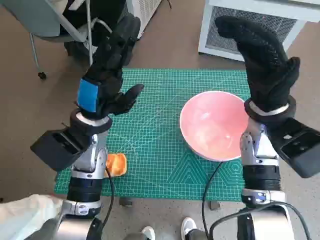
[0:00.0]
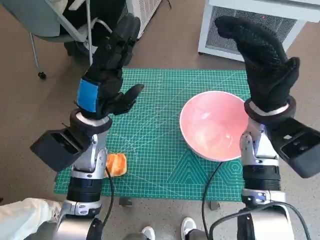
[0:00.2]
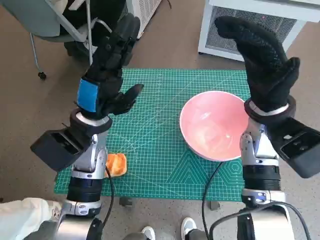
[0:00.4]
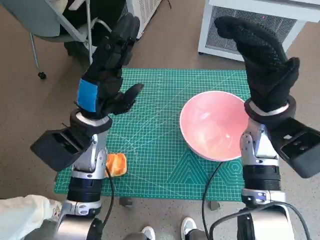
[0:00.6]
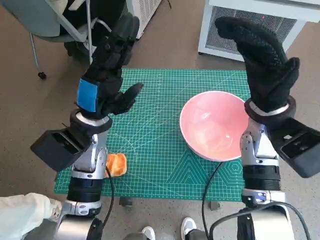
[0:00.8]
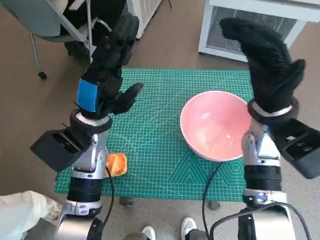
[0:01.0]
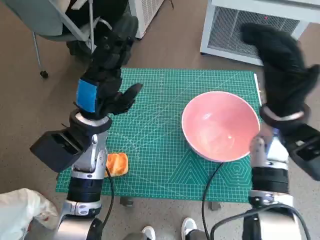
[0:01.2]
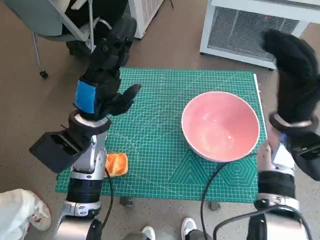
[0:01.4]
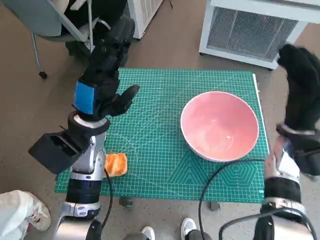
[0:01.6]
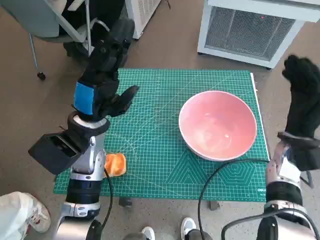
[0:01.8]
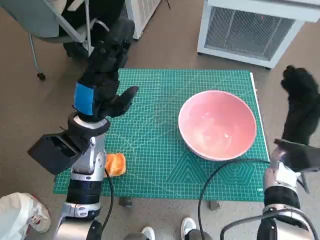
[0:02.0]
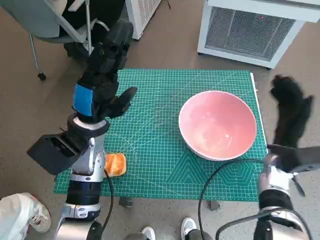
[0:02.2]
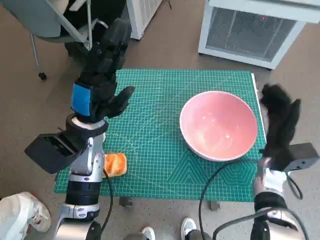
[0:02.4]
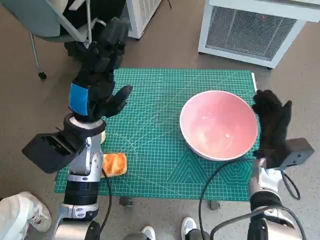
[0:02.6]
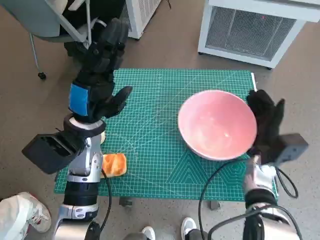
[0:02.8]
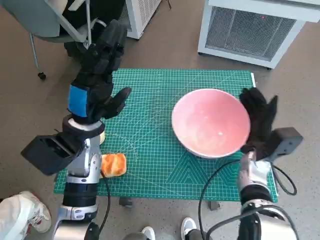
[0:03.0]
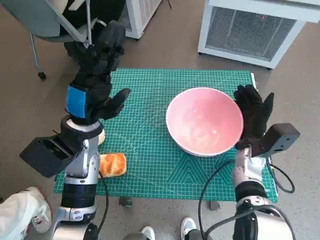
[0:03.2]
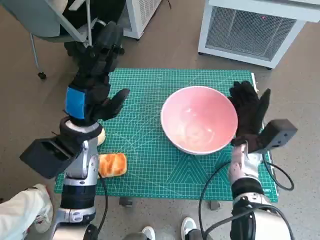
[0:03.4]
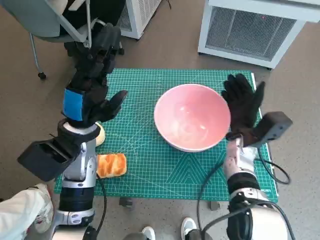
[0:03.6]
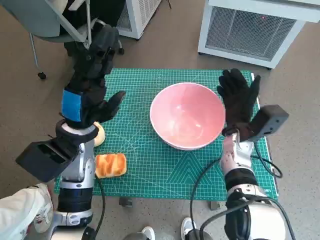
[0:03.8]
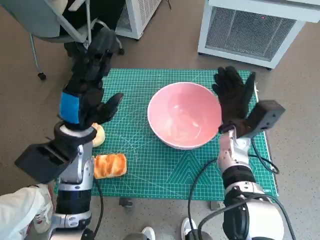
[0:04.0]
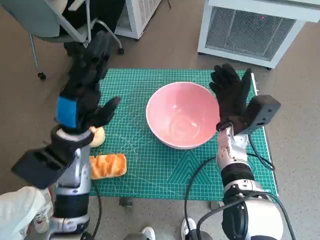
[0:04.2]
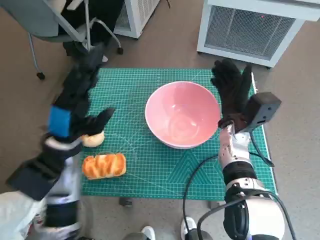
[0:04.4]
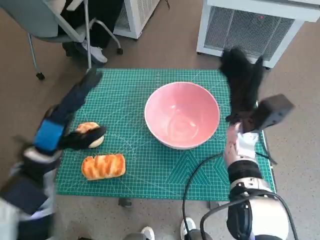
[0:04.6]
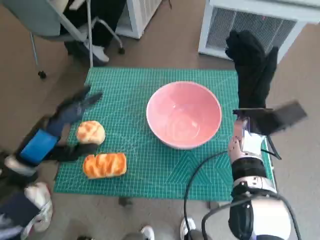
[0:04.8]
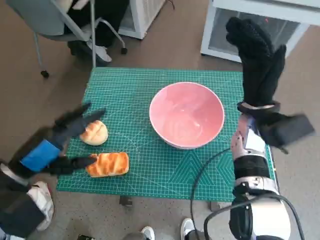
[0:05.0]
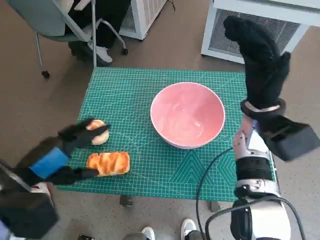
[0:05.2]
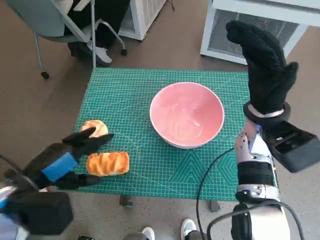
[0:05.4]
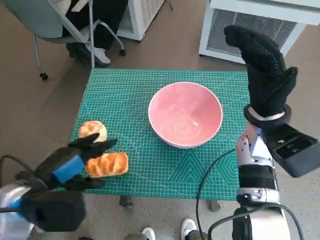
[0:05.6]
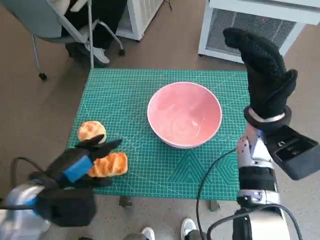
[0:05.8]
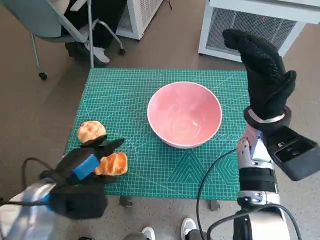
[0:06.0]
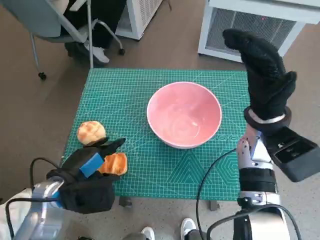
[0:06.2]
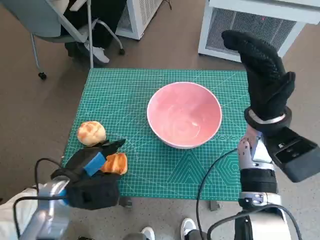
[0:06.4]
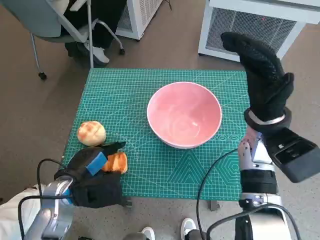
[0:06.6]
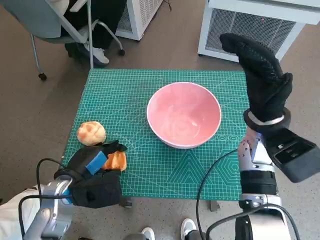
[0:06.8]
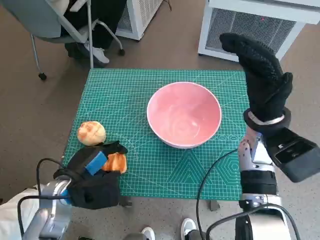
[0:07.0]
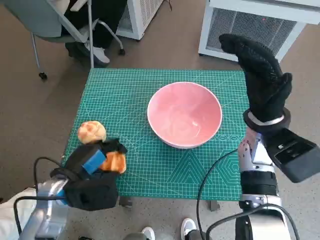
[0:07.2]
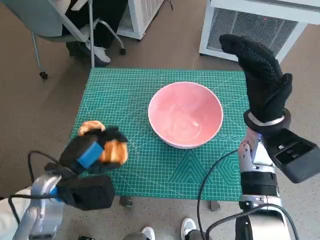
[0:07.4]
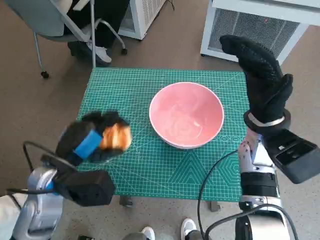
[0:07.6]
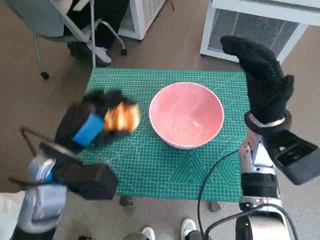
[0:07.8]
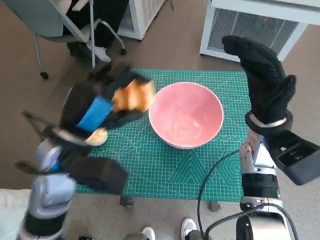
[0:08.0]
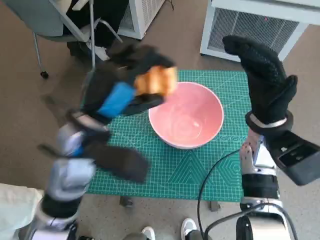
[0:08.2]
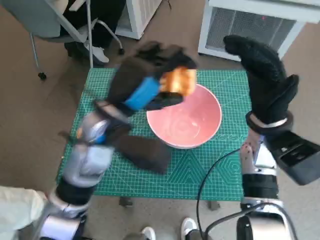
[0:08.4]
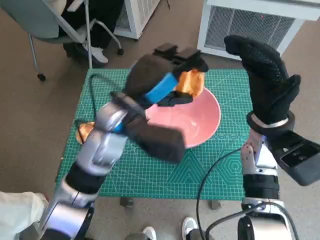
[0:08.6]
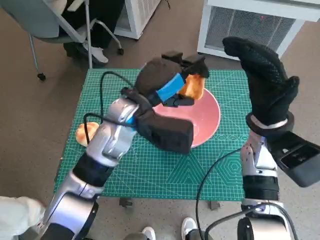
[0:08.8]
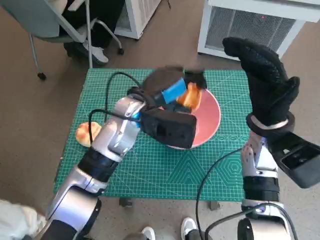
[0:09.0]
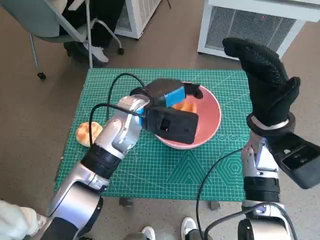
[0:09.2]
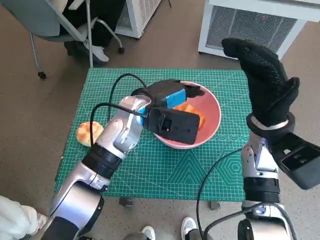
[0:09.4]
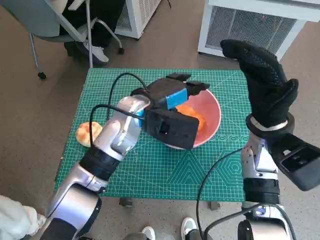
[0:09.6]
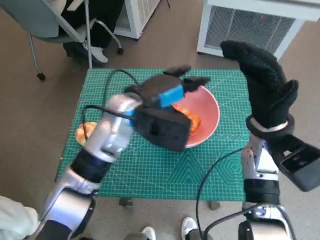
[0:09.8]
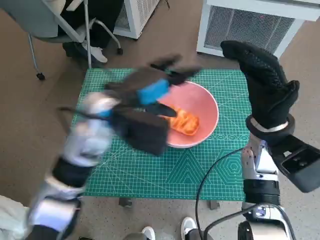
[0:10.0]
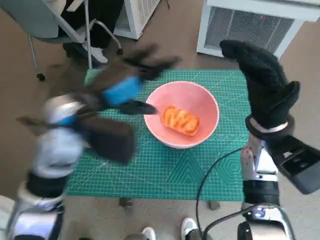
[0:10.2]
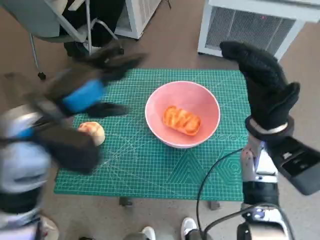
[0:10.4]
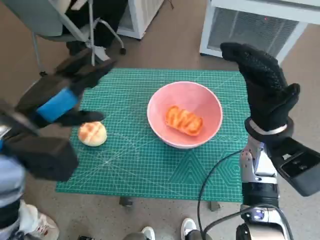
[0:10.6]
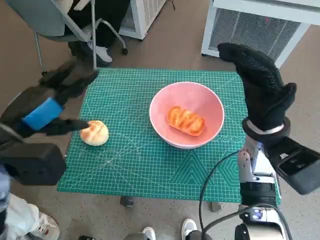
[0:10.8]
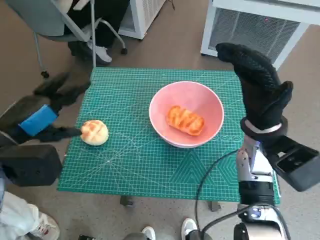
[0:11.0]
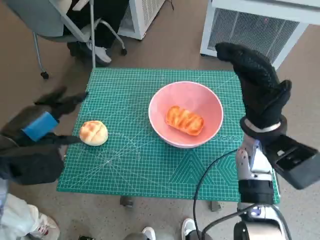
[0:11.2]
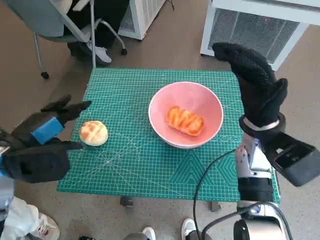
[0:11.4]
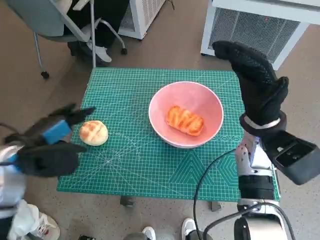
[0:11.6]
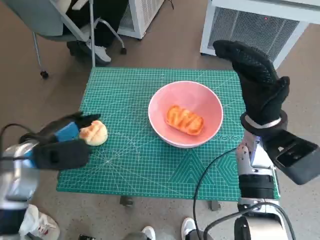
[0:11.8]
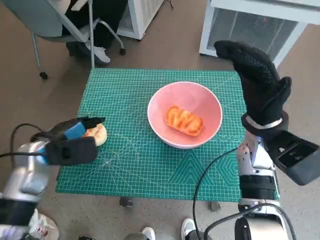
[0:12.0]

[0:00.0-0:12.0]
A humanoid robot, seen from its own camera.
Task of the whole recording: Push the bowl to the center of the table and put the bread into the bowl.
Step, 0:00.0 to 0:04.4: Move the pink bowl to the center of table with right hand.
Step, 0:04.6 to 0:06.8: Grasp the long bread with left hand.
Step, 0:07.0 to 0:09.8: Place the long bread in pink bowl with left hand.
0:01.6 to 0:03.0: The right hand heads downward, covering about 10 cm.
0:03.0 to 0:04.4: The right hand goes roughly 5 cm to the left.
0:04.4 to 0:06.0: The right hand goes approximately 10 cm upward. The left hand goes approximately 5 cm backward.
0:07.6 to 0:09.0: The left hand travels to the right and forward by about 20 cm.
0:09.0 to 0:10.4: The left hand heads to the left, backward and upward, covering approximately 15 cm.
0:10.4 to 0:12.0: The left hand moves downward and to the left, roughly 15 cm.

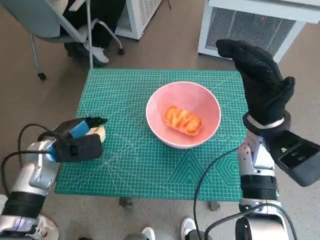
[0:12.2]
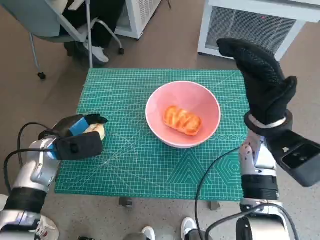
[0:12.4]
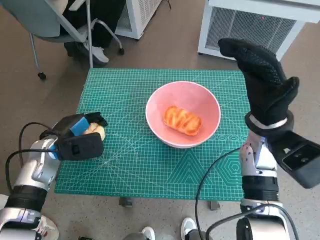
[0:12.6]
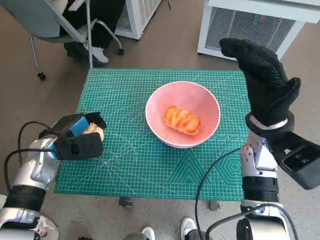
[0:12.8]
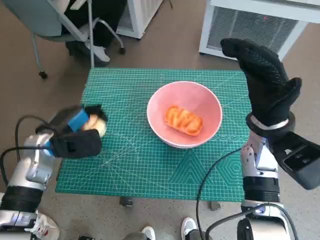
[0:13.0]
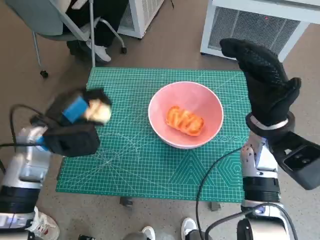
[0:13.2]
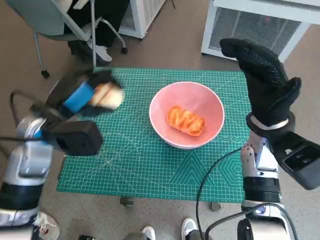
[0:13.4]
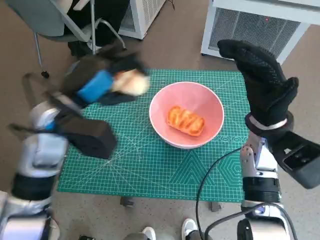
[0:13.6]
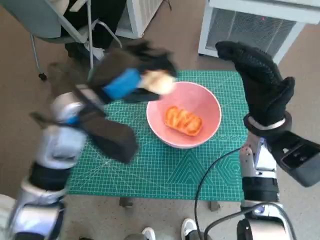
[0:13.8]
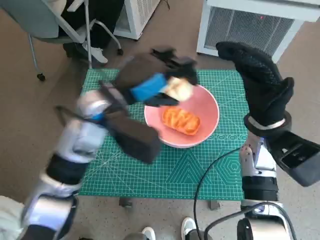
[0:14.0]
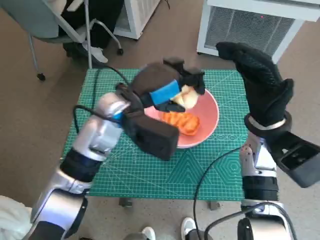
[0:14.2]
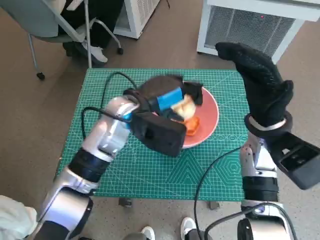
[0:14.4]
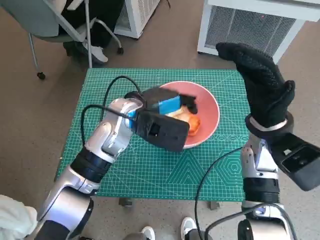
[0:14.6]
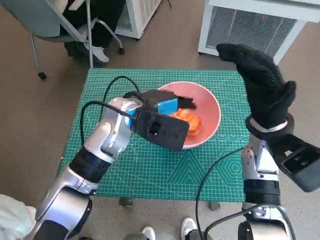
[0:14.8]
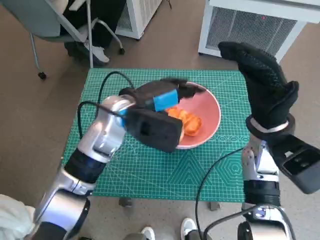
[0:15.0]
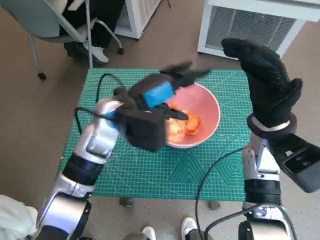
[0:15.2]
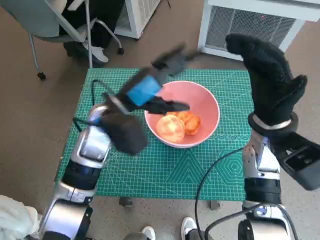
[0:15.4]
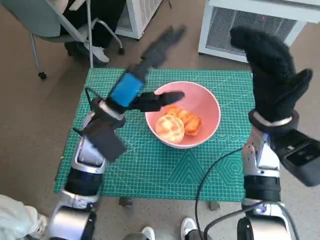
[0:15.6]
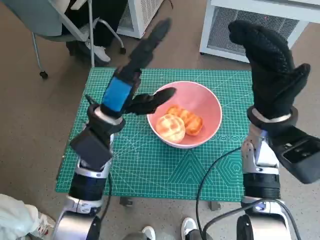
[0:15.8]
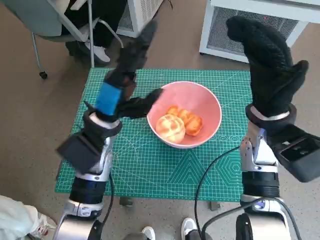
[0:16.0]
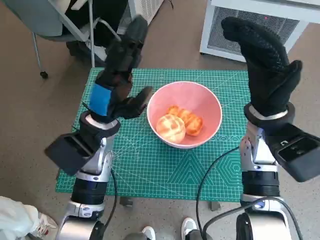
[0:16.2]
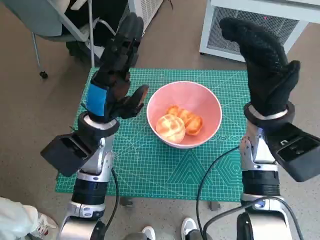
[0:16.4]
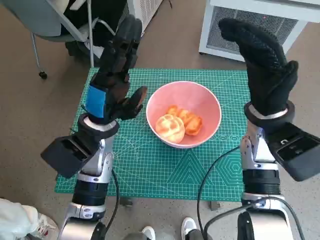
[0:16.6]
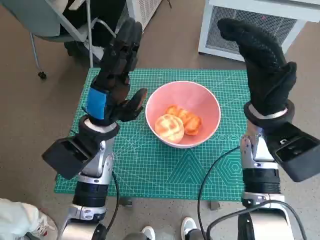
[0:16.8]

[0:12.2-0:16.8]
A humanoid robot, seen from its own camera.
Task of the whole recording: Push the bowl to the center of the table and put the bread into the bowl.
Step, 0:12.6 to 0:14.8: Place the round bread in pink bowl with left hand.
0:12.2 to 0:13.8: The left hand moves upward and to the right, some 15 cm.
0:13.8 to 0:15.2: The left hand is displaced to the right by roughly 5 cm.
0:15.2 to 0:16.8: The left hand ends up approximately 5 cm from where it was.

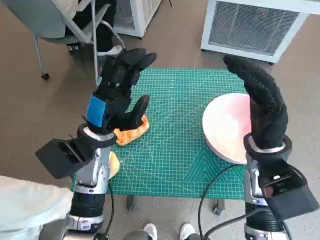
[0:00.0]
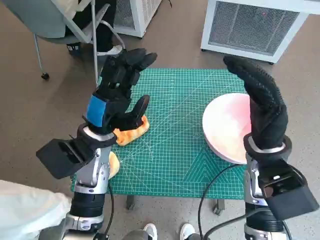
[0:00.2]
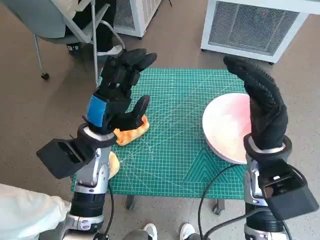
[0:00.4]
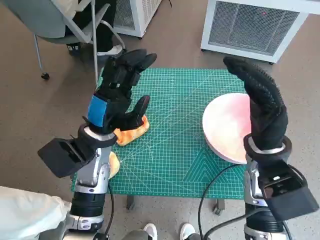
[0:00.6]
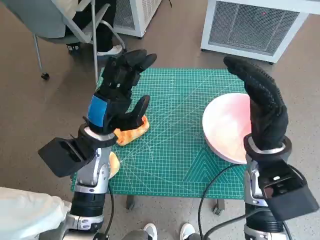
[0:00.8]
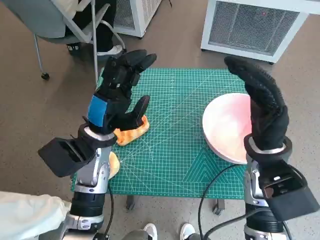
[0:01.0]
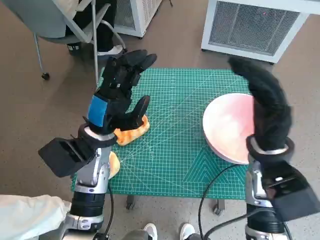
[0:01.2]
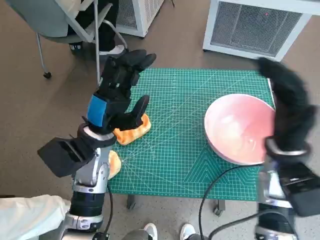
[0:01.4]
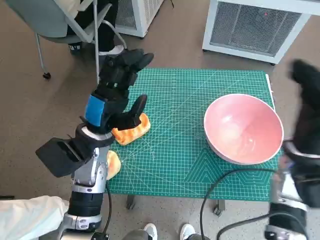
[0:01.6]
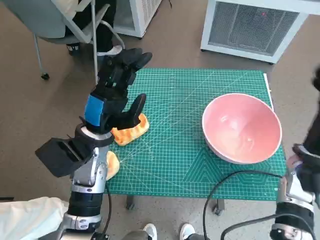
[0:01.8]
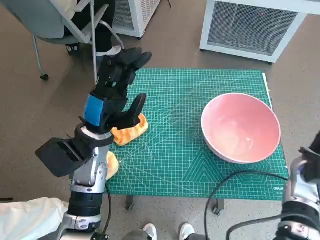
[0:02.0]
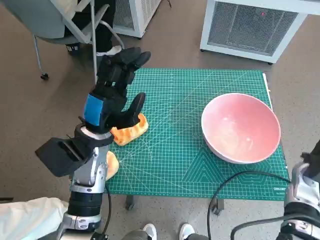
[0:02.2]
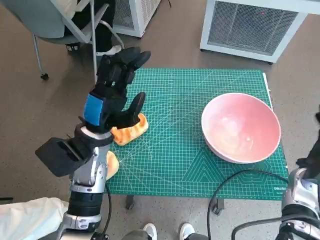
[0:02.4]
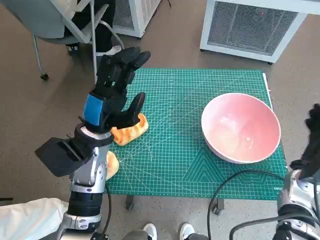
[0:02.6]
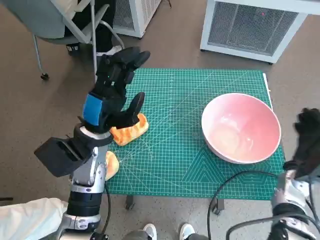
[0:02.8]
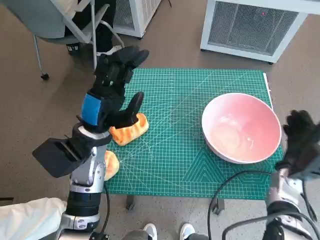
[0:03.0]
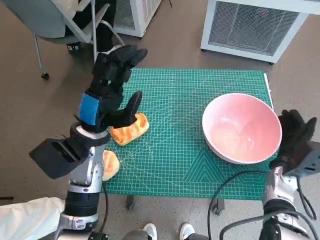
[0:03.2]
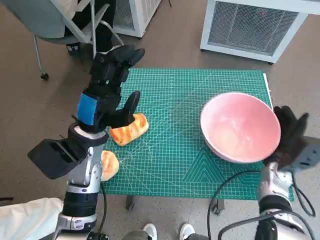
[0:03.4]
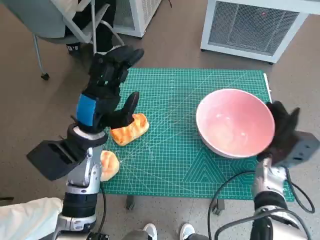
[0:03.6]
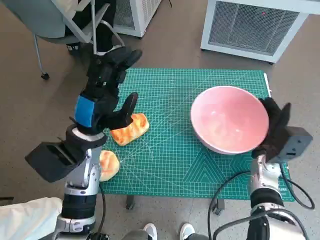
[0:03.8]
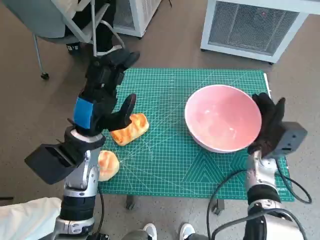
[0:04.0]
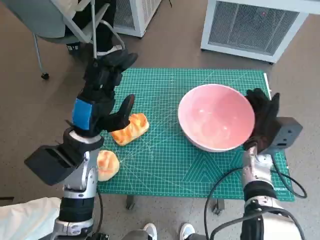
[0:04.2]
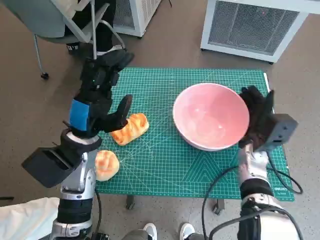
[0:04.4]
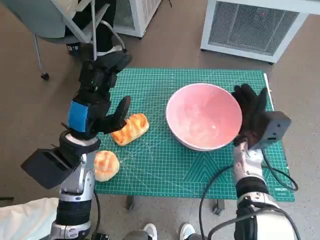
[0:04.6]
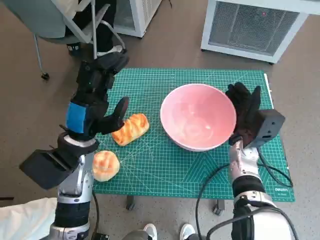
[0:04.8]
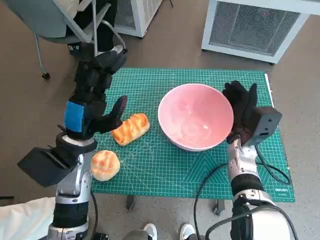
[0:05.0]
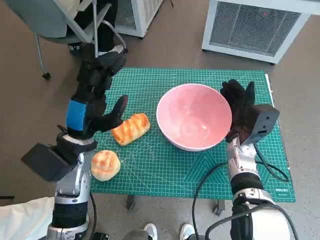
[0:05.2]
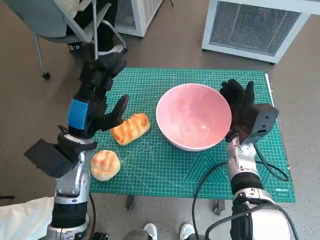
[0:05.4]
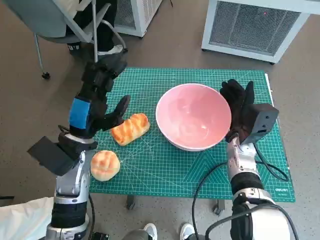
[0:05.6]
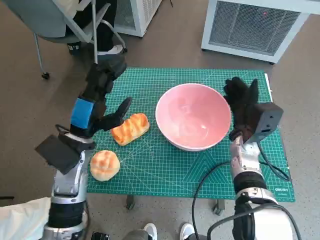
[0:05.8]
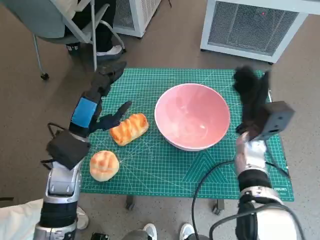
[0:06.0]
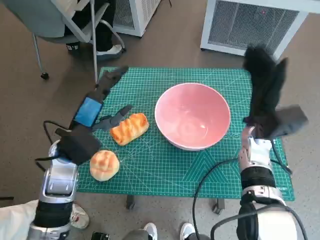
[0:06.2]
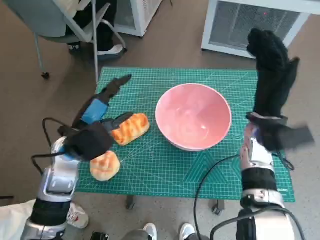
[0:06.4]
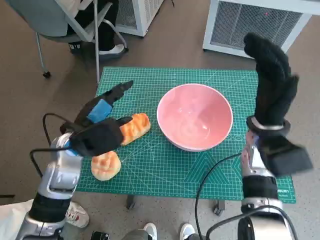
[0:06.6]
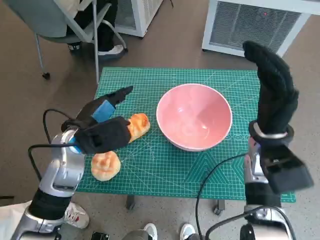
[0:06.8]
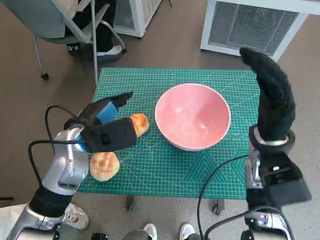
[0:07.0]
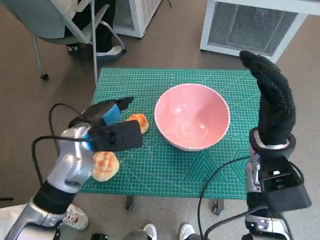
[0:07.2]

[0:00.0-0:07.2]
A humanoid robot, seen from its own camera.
Task of the whole recording: Push the bowl to the center of the table and put the bread into the bowl.
Step, 0:00.0 to 0:06.0: Move the pink bowl to the center of table with right hand.
0:01.4 to 0:02.8: The right hand travels downward and to the right by some 15 cm.
0:02.8 to 0:04.4: The right hand is displaced to the left and forward by roughly 10 cm.
0:05.8 to 0:07.2: The right hand goes roughly 10 cm upward.
